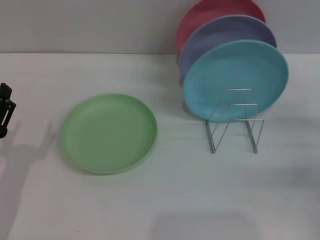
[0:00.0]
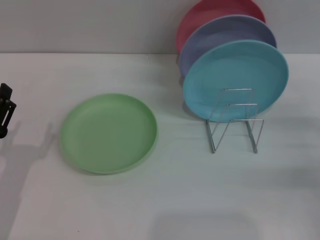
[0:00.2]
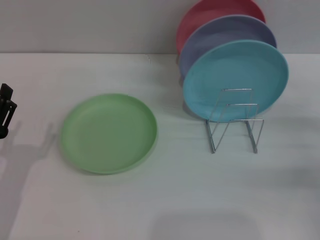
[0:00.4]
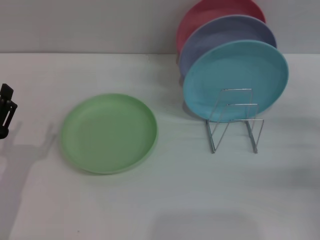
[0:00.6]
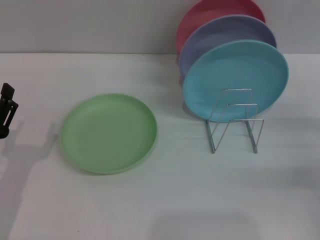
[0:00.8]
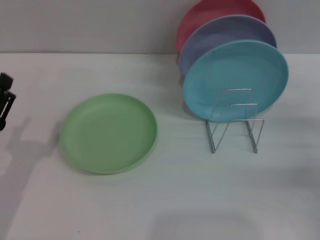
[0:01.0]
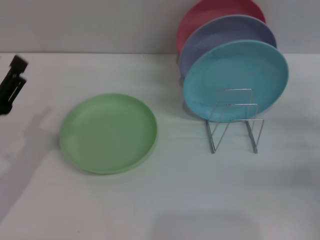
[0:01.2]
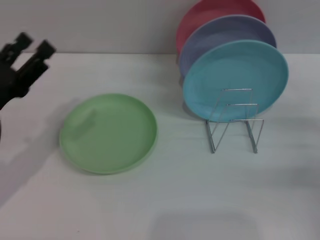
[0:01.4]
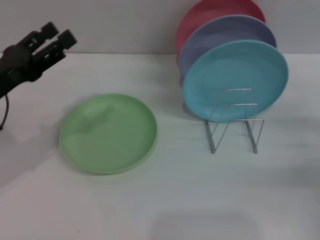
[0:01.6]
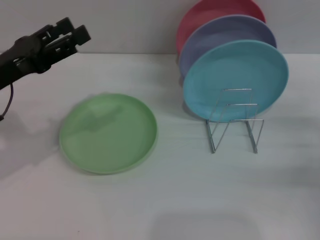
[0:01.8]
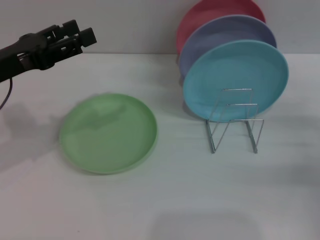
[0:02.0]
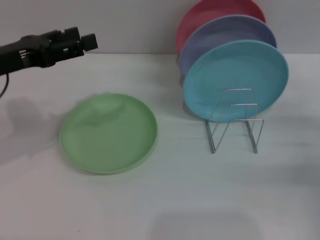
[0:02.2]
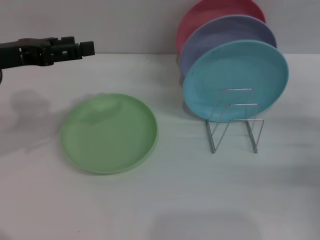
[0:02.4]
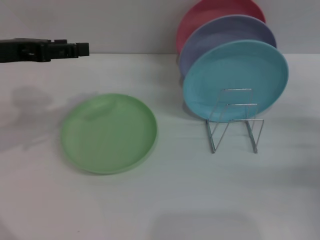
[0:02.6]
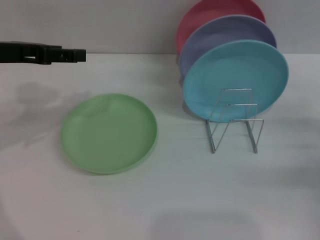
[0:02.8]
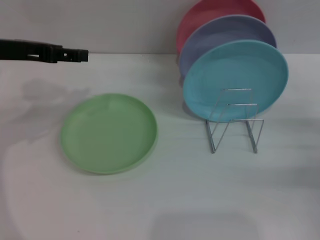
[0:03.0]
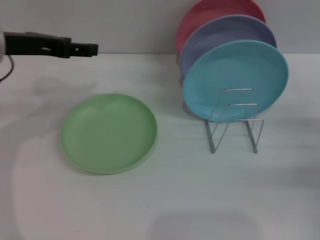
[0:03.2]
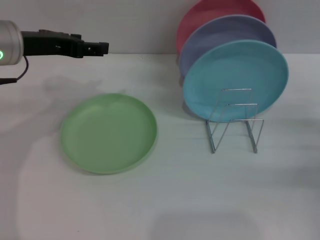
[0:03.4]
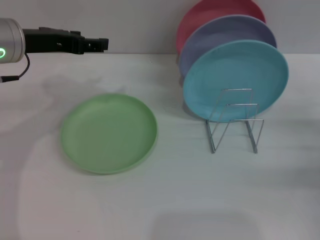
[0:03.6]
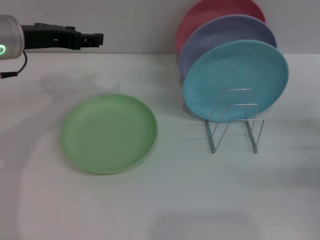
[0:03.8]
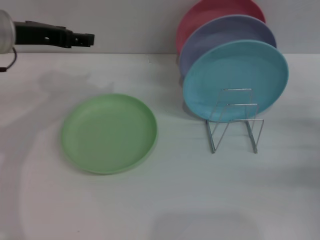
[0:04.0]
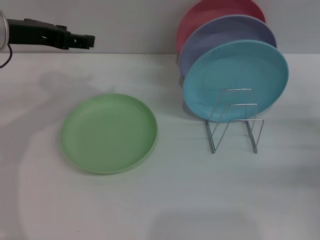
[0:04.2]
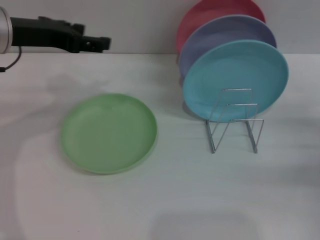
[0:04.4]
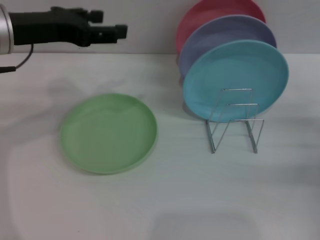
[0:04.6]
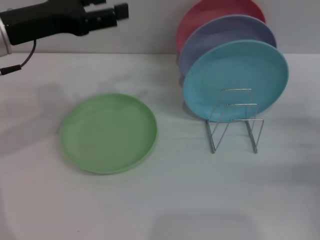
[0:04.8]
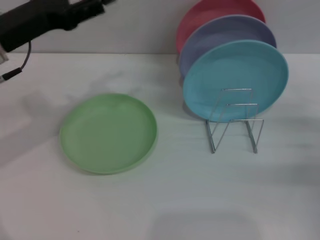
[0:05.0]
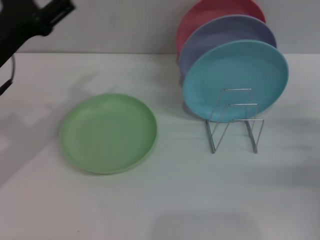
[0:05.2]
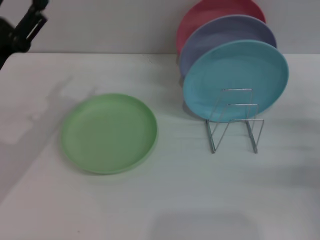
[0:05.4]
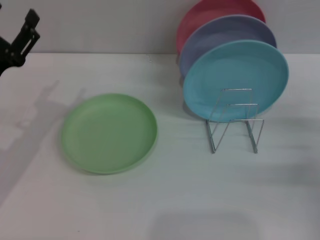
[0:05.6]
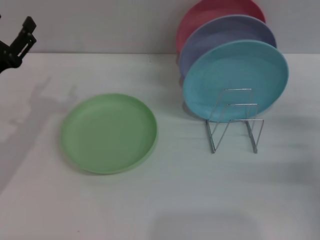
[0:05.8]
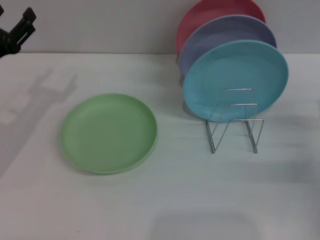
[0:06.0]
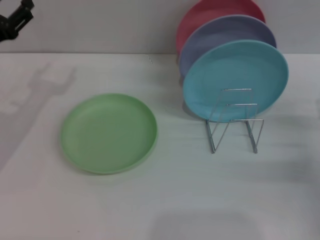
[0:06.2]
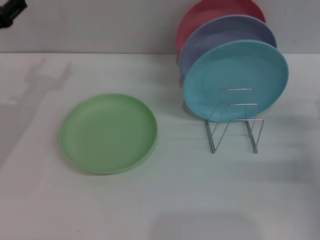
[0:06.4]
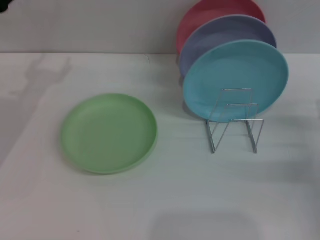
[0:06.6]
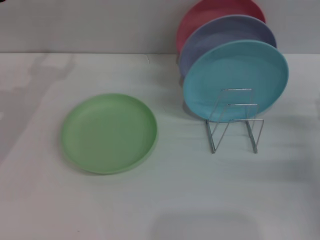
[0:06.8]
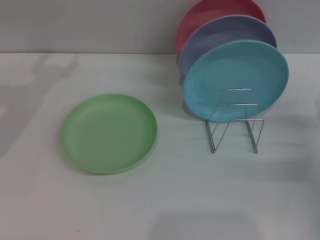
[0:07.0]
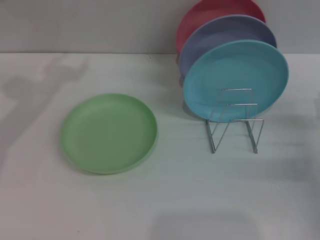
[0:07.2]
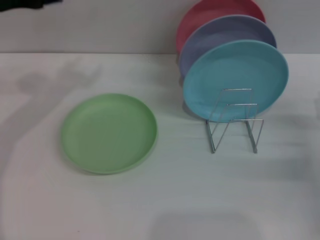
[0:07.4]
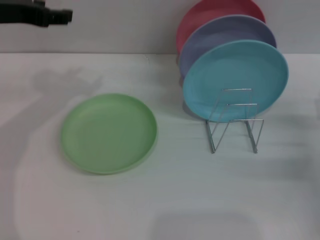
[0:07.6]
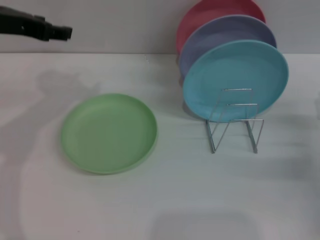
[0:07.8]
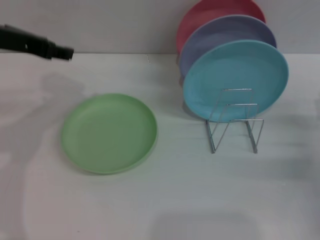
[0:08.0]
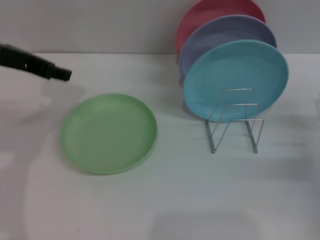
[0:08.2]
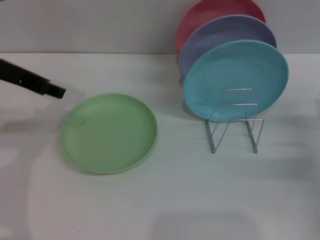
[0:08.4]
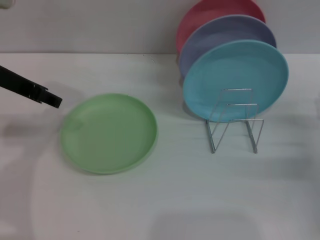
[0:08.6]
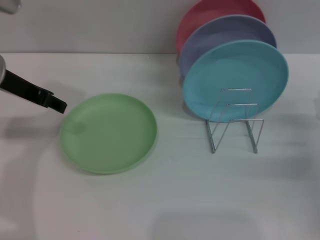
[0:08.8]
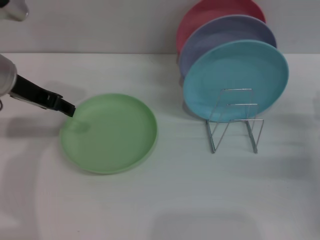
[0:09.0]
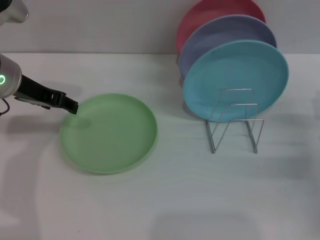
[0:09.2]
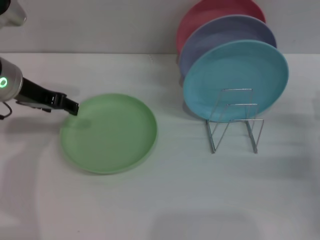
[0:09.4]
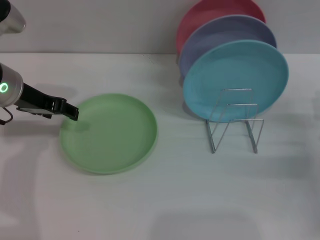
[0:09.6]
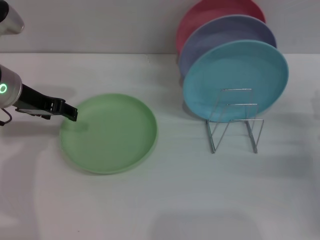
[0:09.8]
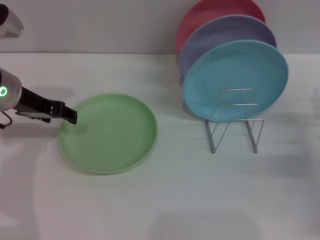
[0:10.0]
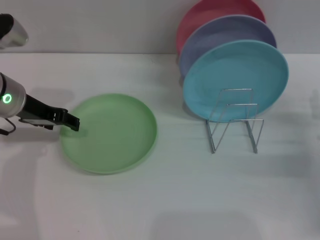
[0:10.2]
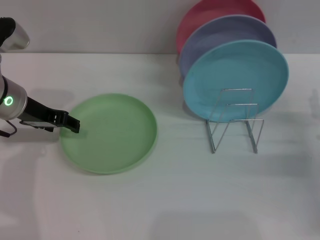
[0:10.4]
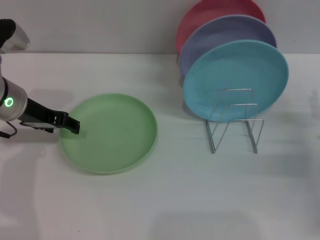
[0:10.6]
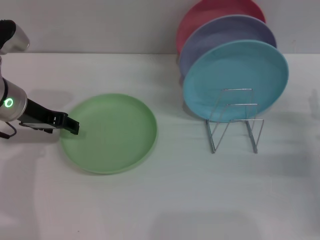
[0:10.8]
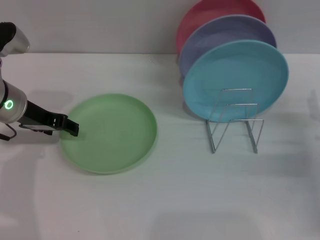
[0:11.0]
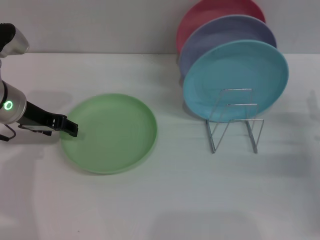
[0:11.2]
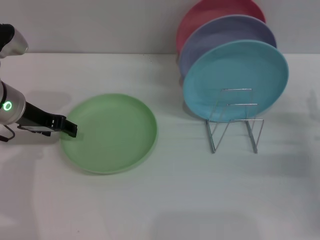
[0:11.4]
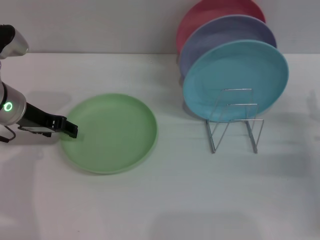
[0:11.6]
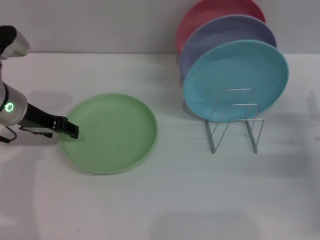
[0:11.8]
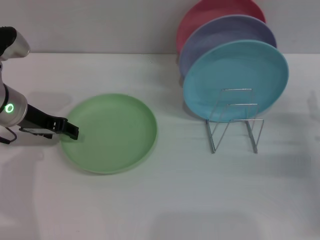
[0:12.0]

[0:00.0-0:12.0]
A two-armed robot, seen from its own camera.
Task of the whole recording: Grip the plate with one hand, pass it to the other, then set it on the shelf.
0:00.0 to 0:01.6: The left gripper goes some 15 cm upward and forward.
0:01.6 to 0:03.0: The left gripper moves upward and forward, about 10 cm.
0:03.0 to 0:04.4: The grippers make only small movements.
0:04.4 to 0:06.0: The left gripper is displaced downward and to the left by some 15 cm.
0:06.0 to 0:07.6: The left gripper shifts roughly 15 cm upward.
0:07.6 to 0:09.0: The left gripper heads downward, covering roughly 5 cm.
0:09.0 to 0:10.4: The left gripper is displaced downward by about 5 cm.
0:10.4 to 0:12.0: Neither gripper changes place.

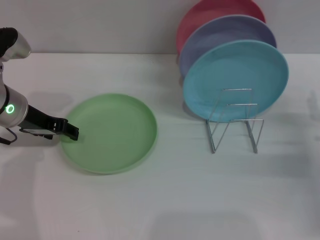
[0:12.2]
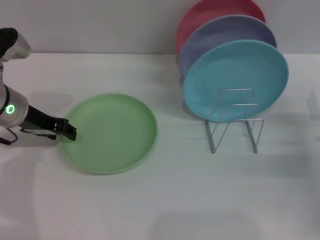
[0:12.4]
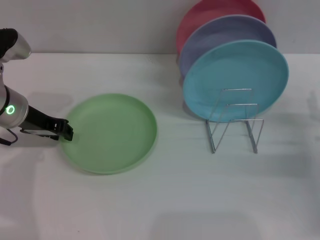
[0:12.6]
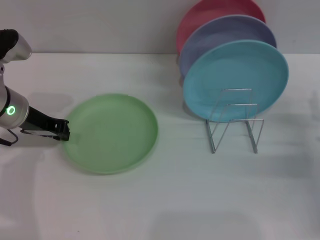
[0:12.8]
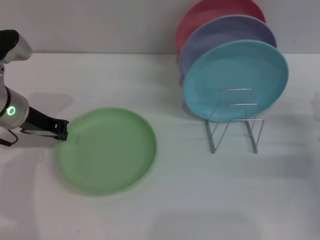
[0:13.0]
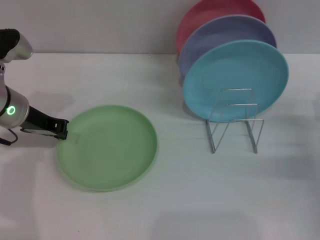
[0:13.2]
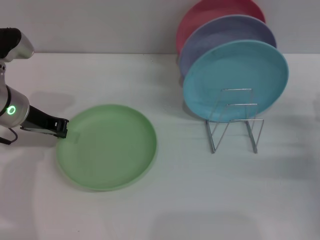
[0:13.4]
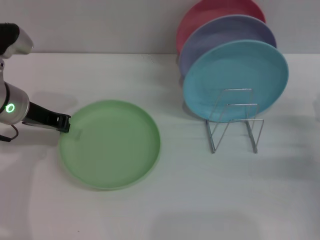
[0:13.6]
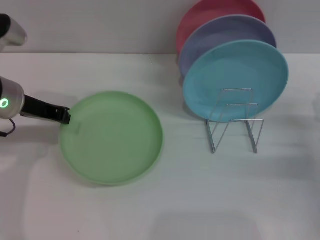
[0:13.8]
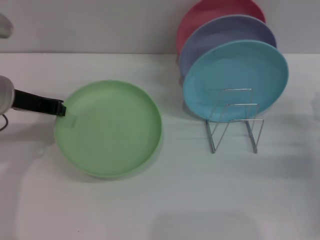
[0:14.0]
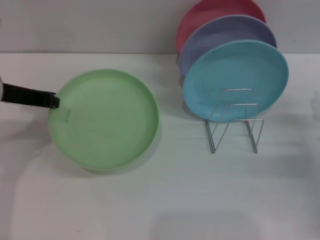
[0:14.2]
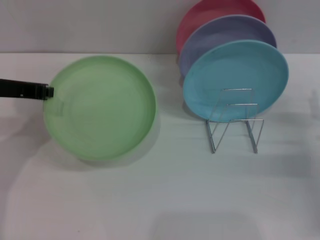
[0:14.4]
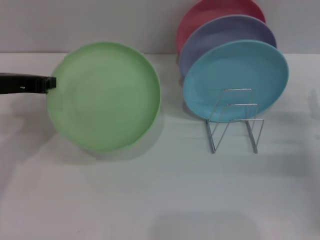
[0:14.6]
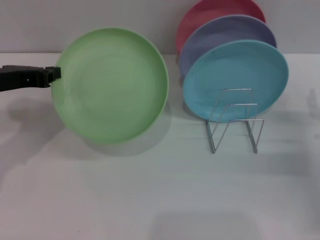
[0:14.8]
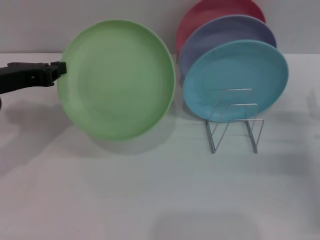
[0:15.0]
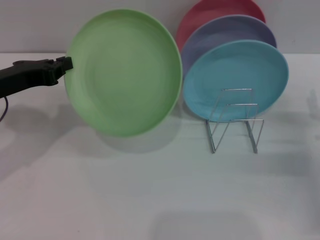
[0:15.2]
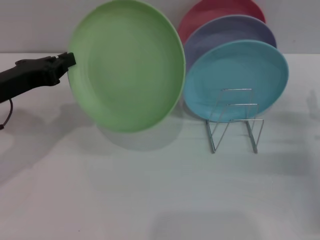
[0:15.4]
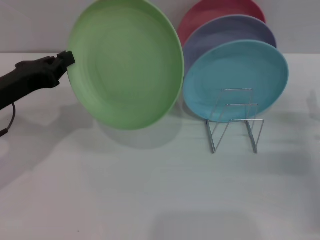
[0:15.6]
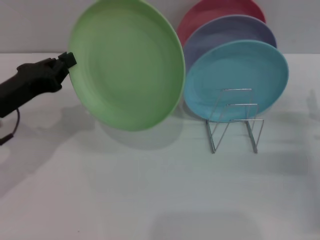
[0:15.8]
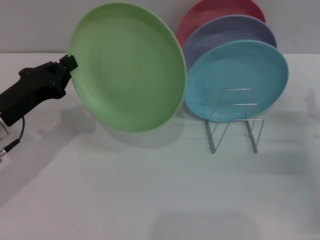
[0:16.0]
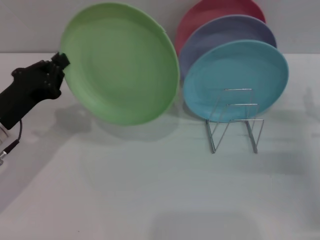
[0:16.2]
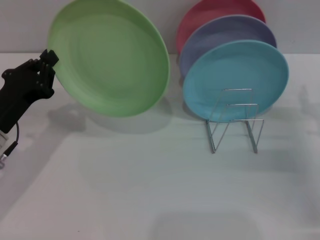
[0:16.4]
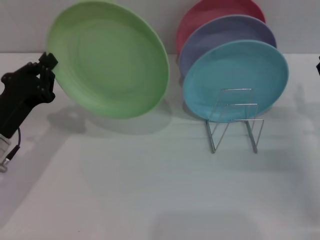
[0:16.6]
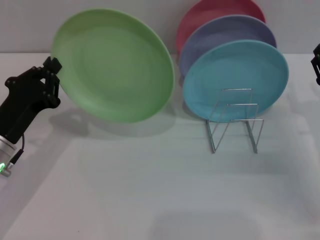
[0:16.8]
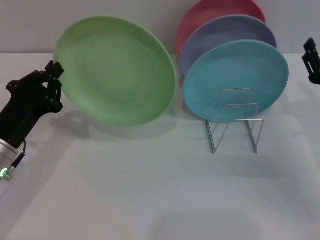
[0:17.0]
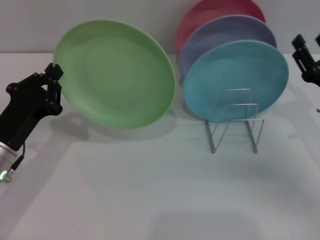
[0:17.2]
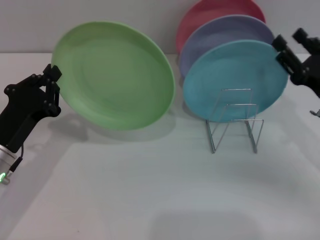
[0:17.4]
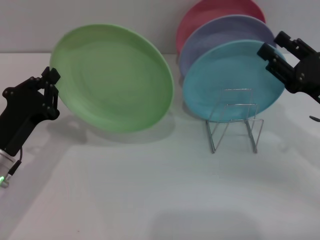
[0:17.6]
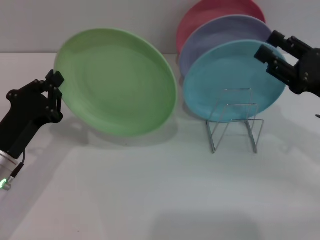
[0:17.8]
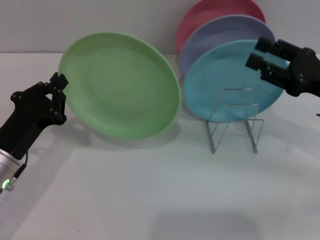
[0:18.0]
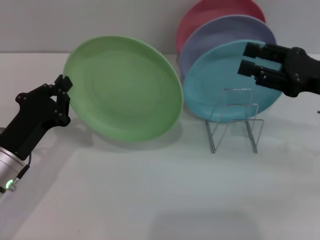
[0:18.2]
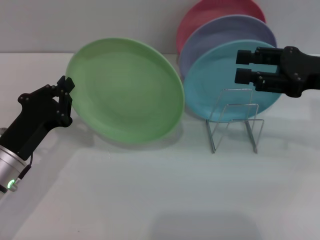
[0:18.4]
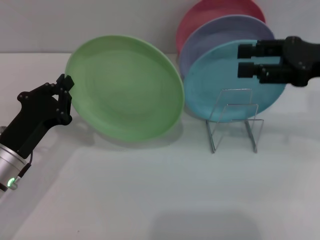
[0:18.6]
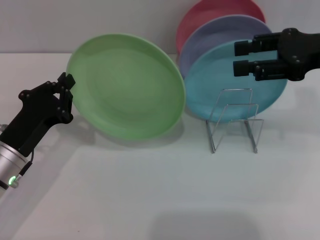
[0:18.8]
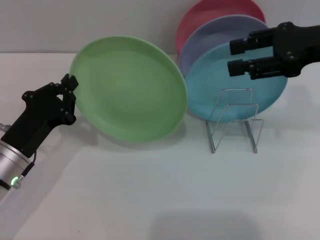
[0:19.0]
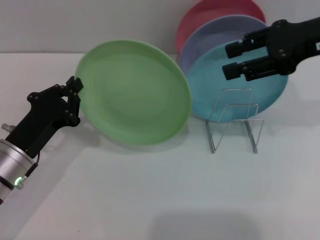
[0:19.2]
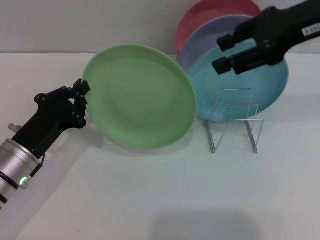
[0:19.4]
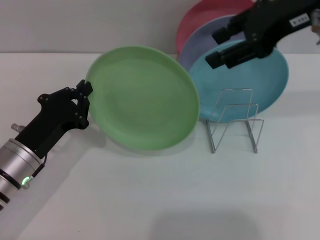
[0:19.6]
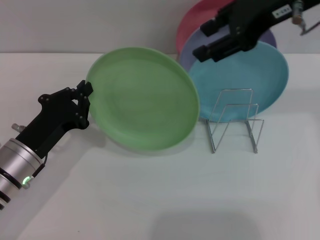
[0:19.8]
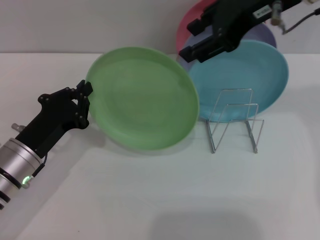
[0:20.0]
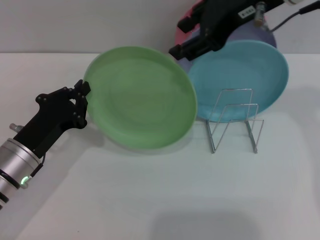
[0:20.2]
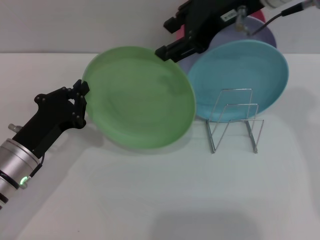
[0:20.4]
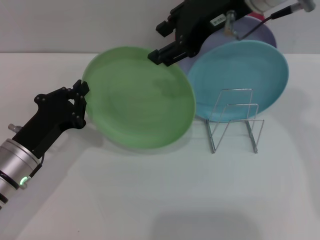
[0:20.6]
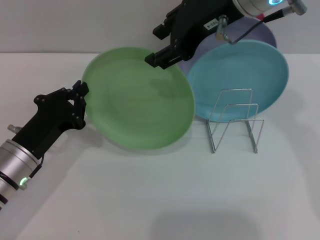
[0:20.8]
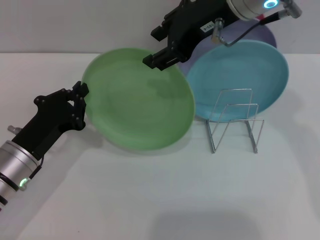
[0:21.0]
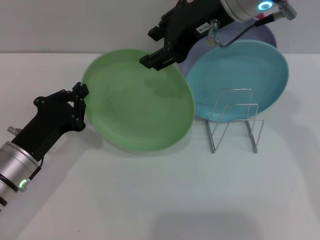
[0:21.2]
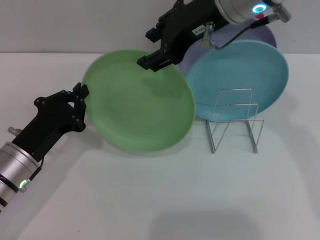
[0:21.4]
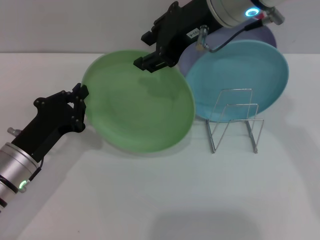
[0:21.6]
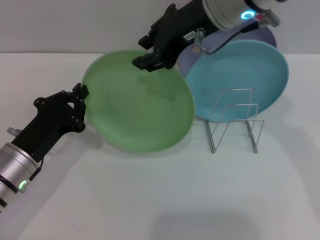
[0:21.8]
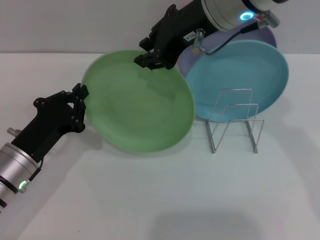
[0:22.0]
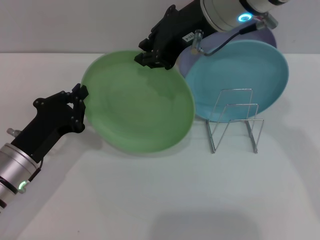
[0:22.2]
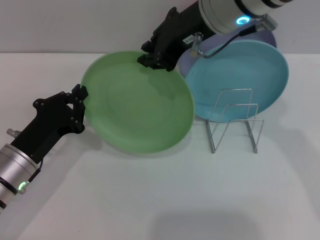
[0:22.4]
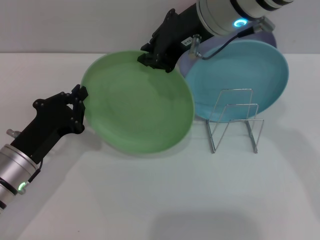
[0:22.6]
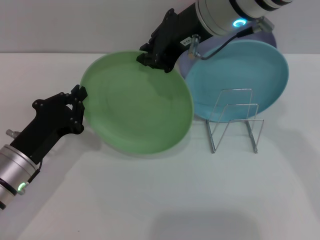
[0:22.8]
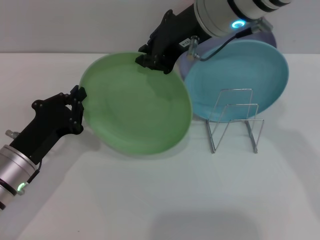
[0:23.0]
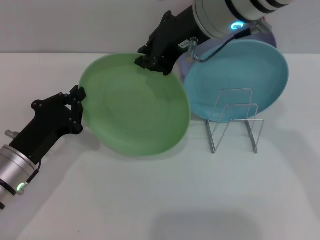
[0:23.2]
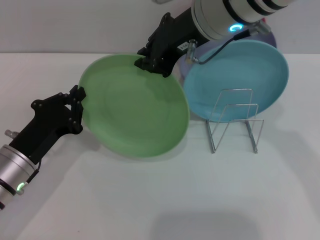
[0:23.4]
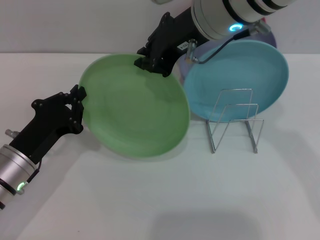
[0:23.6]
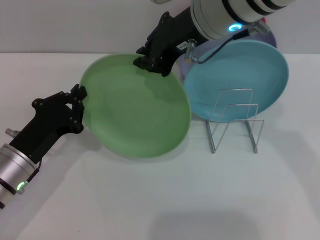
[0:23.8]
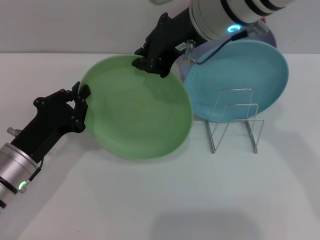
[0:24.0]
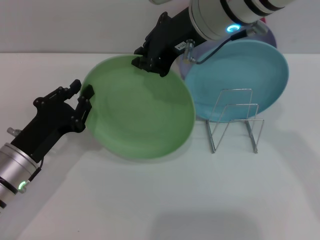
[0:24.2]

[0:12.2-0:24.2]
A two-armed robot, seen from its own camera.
Task of the whole recording: Grip the plate with one hand, pass it to the other, then set it on the shelf.
Step, 0:12.2 to 0:15.0: Pick up the plate with the left gripper.
0:12.2 to 0:13.8: The left gripper closes up.
0:13.8 to 0:15.2: The left gripper shifts by some 5 cm.
0:15.2 to 0:16.6: The left gripper moves downward, roughly 10 cm.
0:16.6 to 0:18.2: The right gripper travels upward by roughly 10 cm.
0:18.2 to 0:19.8: The right gripper travels upward and to the left by some 20 cm.
0:19.8 to 0:21.2: The right gripper travels to the left by some 10 cm.
0:21.2 to 0:22.6: The right gripper closes.
0:22.6 to 0:24.2: Both grippers stay about where they are.
